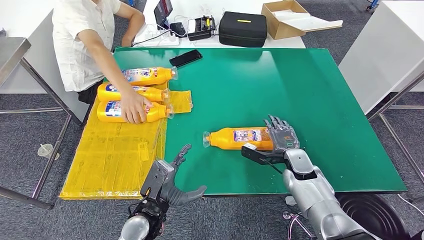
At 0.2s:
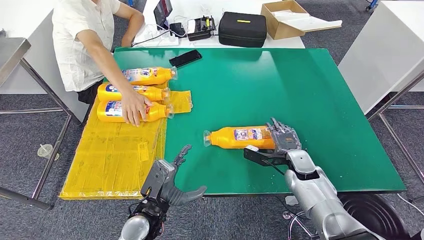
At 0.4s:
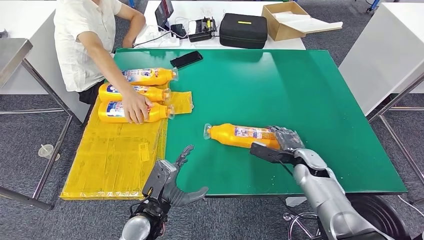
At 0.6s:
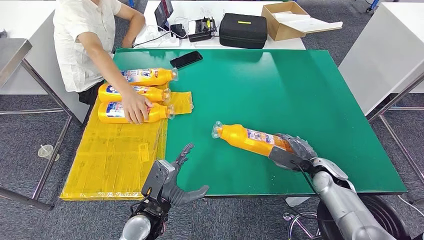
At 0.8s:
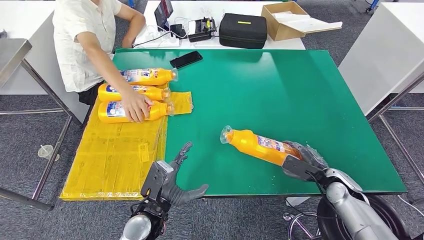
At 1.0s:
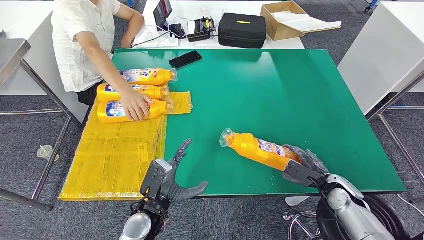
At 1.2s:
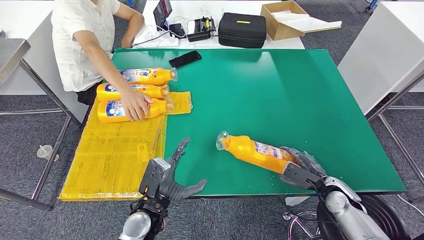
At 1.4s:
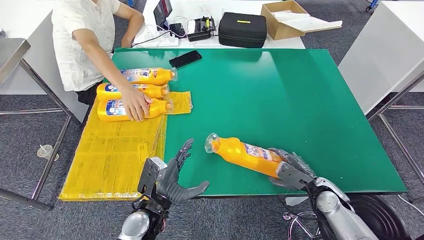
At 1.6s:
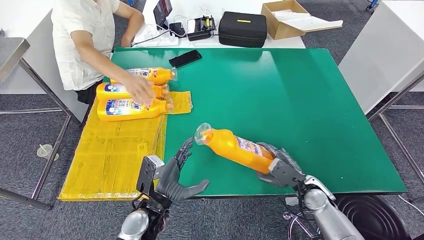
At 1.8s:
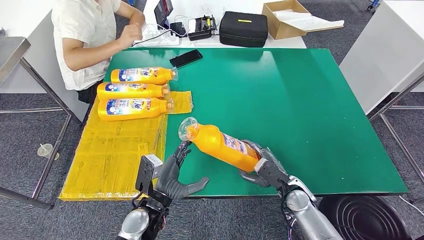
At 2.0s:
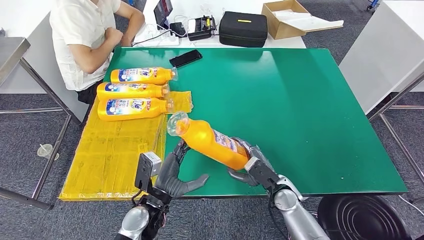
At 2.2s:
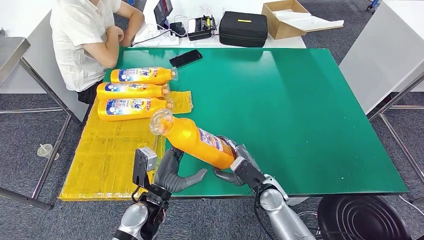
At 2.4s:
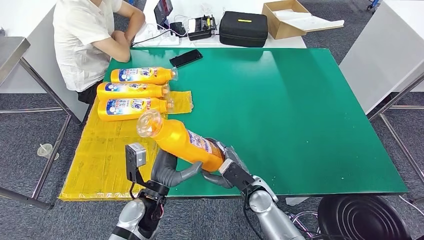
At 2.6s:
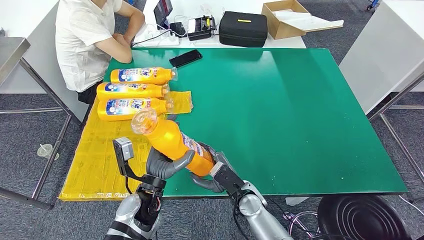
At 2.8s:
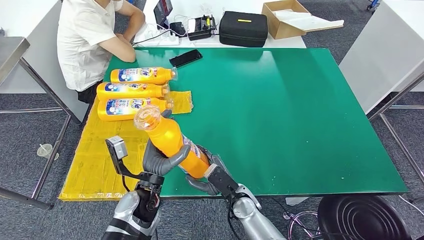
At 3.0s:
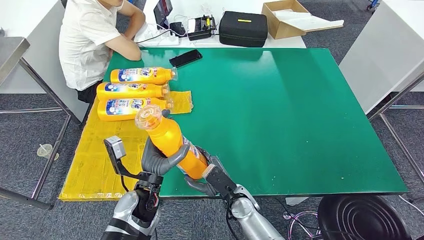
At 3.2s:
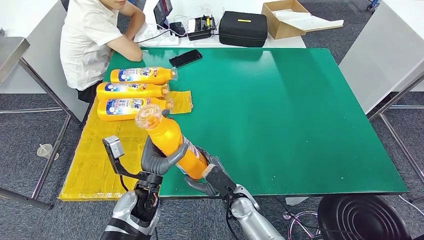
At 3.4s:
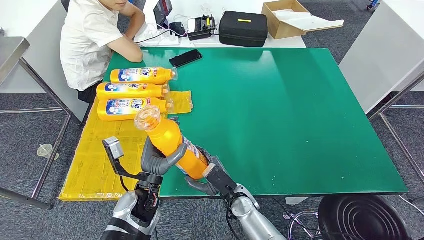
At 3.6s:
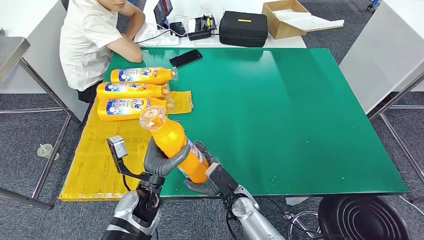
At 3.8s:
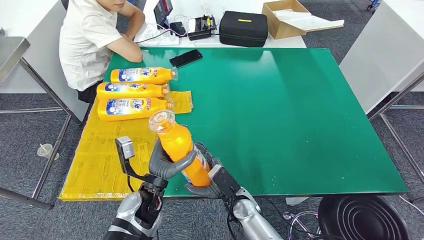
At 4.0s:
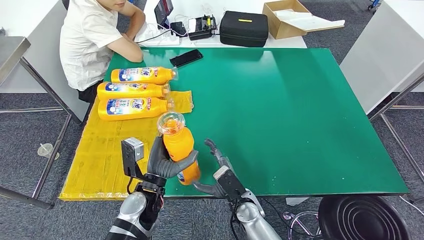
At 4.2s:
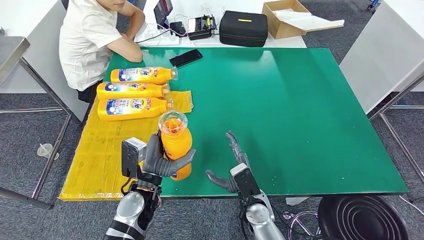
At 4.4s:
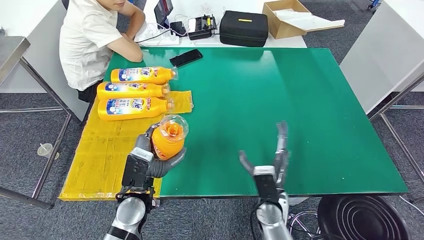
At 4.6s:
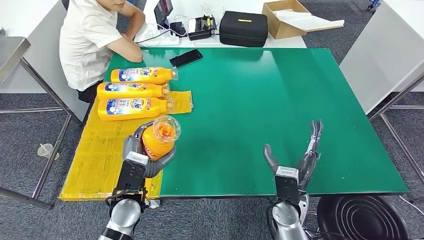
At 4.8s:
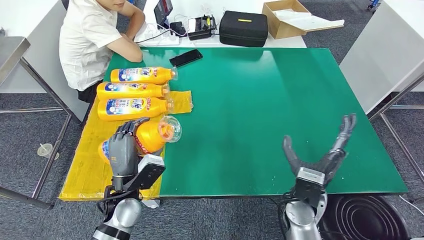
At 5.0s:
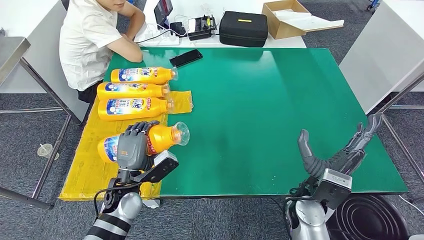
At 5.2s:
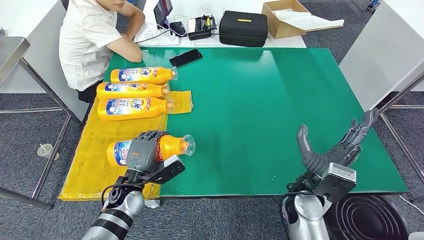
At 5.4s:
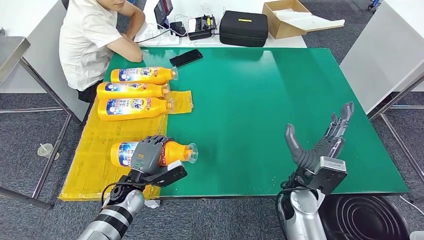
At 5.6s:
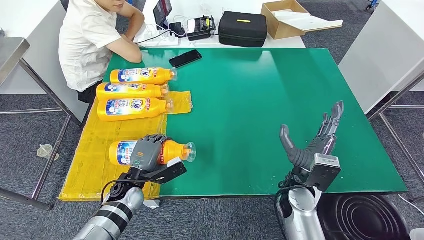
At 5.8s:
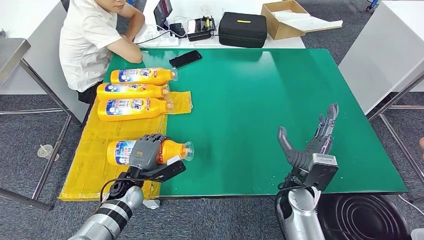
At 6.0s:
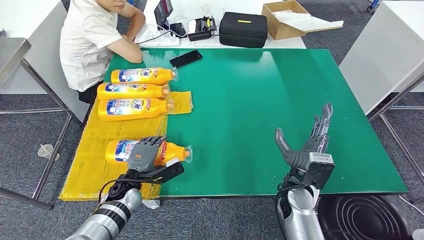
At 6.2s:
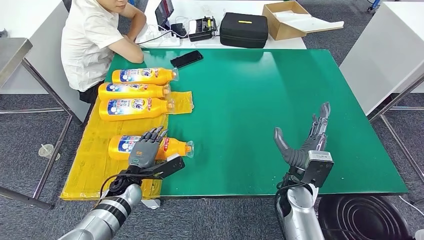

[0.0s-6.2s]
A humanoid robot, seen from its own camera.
Step, 0.0s to 3.6s: Pick up the fast-moving consumer goods bottle from the table.
Step, 3.8s to 6.2s: Flip the fast-moving consumer goods bottle to the front side.
0.0s to 1.6s: The right hand heads backward, covering roughly 10 cm, and travels to the right and back again, some 10 cm each way.
1.6s to 3.2s: The right hand shifts roughly 20 cm to the left. The left hand ends up approximately 5 cm from where it was.
3.2s to 4.6s: The right hand heads to the right and upward, covering roughly 10 cm.
4.6s to 6.2s: The left hand goes about 10 cm downward and forward.
